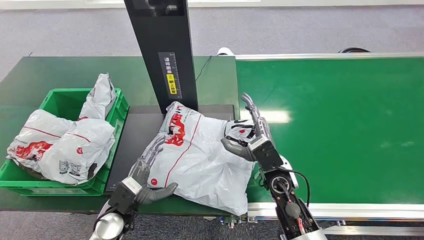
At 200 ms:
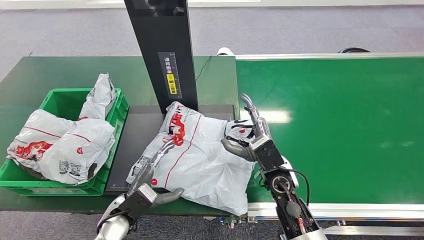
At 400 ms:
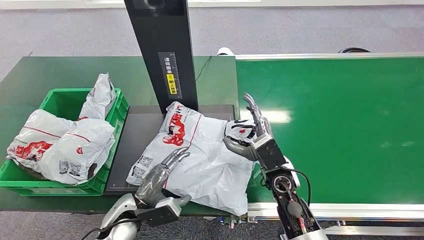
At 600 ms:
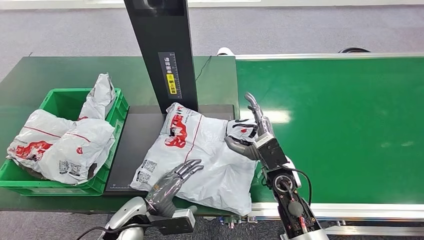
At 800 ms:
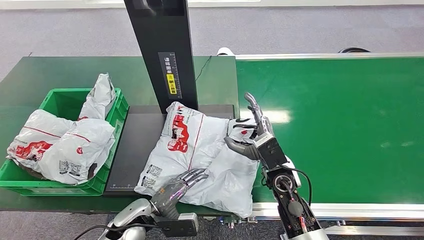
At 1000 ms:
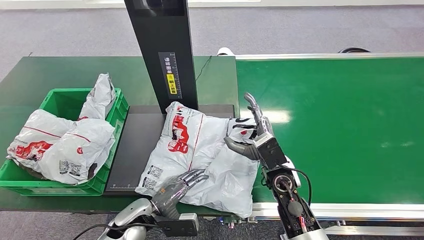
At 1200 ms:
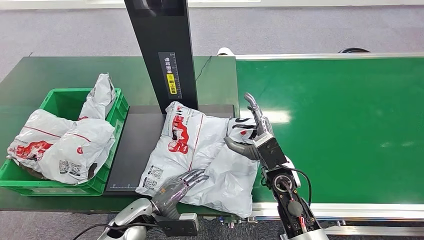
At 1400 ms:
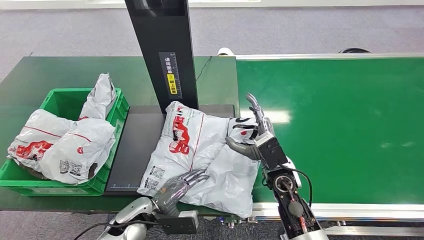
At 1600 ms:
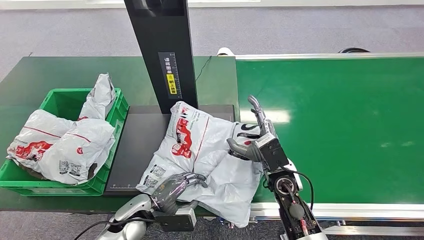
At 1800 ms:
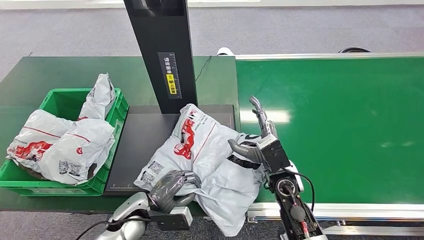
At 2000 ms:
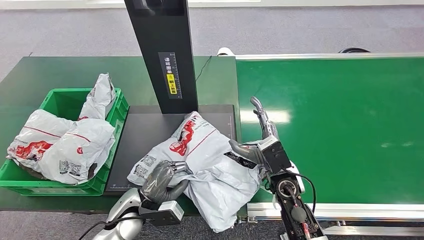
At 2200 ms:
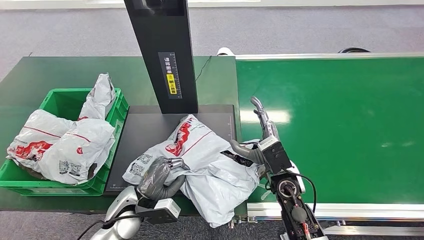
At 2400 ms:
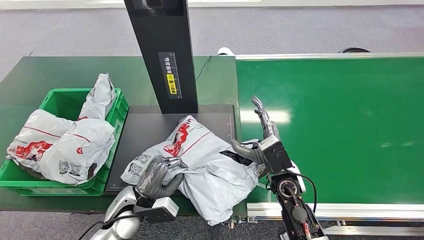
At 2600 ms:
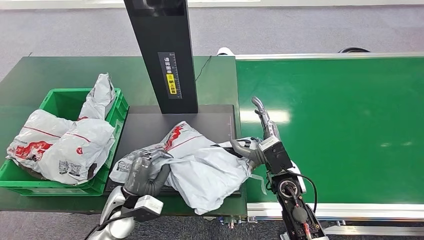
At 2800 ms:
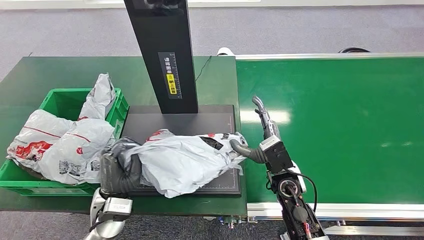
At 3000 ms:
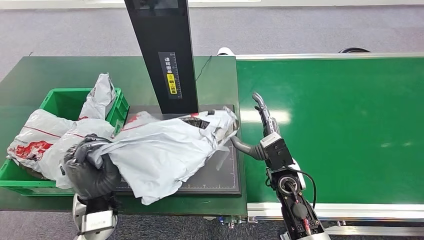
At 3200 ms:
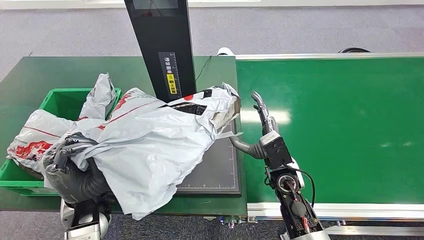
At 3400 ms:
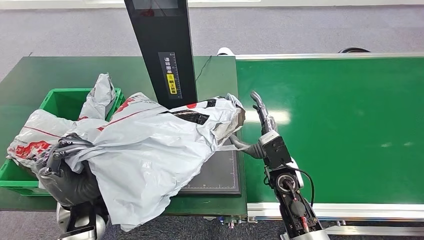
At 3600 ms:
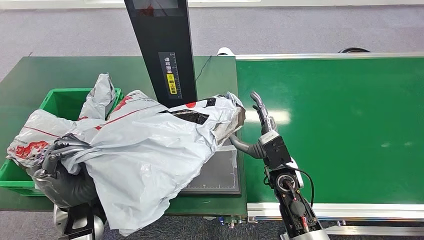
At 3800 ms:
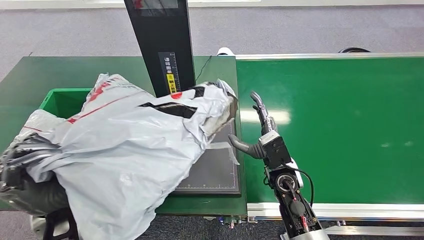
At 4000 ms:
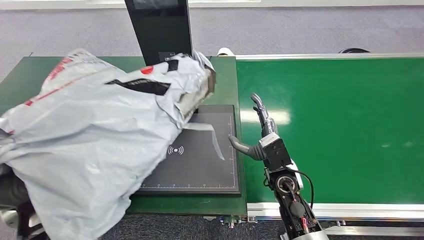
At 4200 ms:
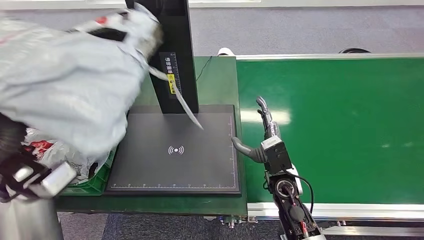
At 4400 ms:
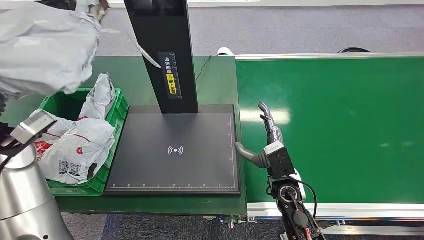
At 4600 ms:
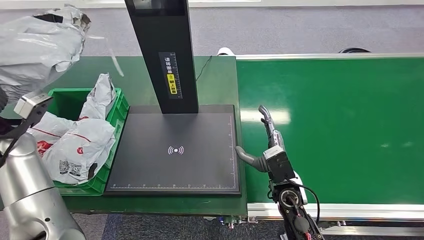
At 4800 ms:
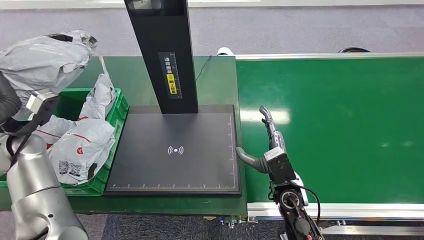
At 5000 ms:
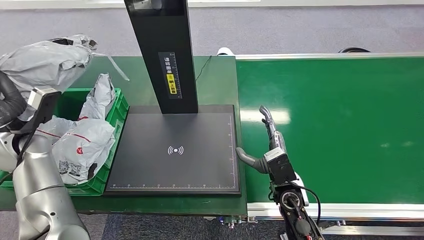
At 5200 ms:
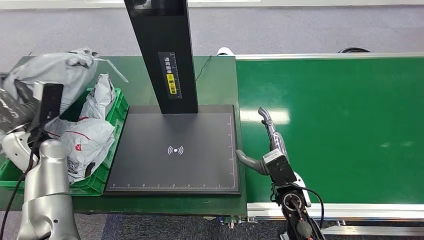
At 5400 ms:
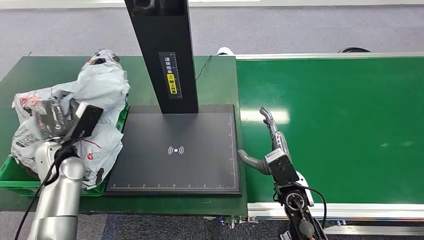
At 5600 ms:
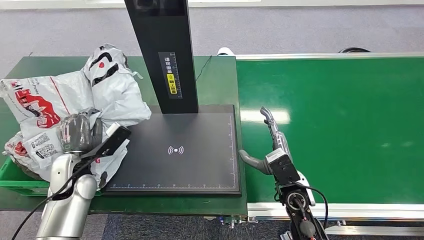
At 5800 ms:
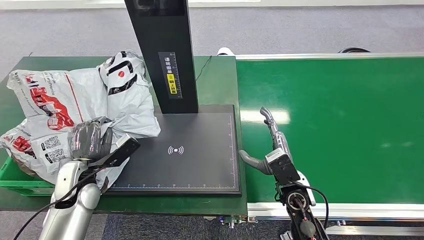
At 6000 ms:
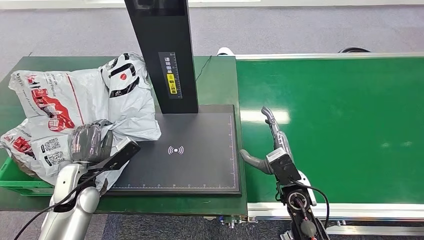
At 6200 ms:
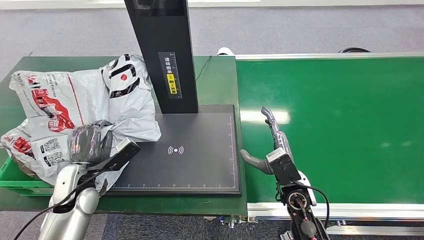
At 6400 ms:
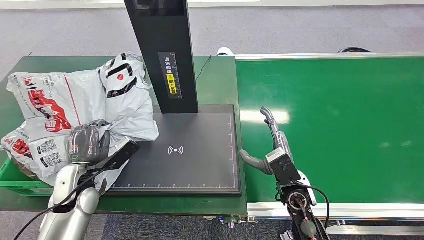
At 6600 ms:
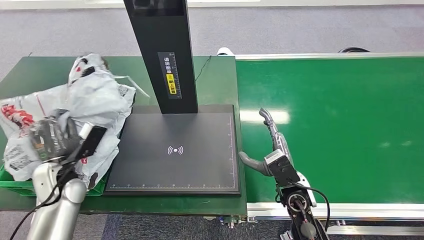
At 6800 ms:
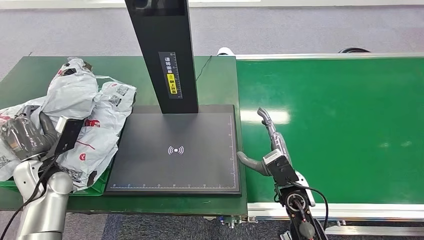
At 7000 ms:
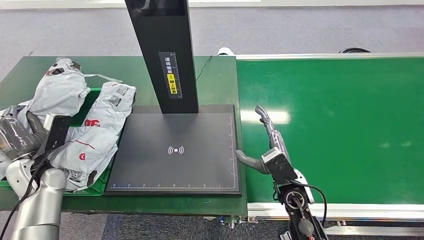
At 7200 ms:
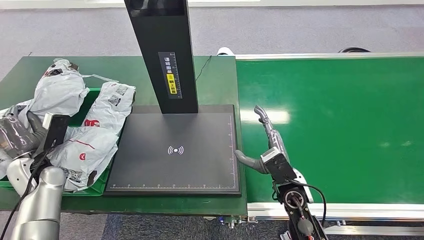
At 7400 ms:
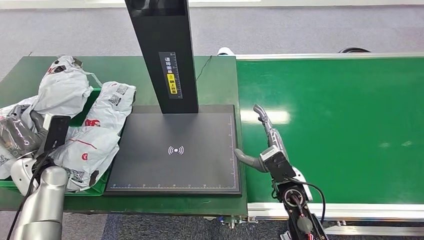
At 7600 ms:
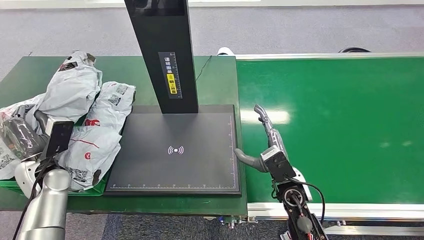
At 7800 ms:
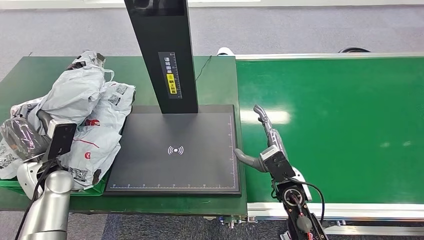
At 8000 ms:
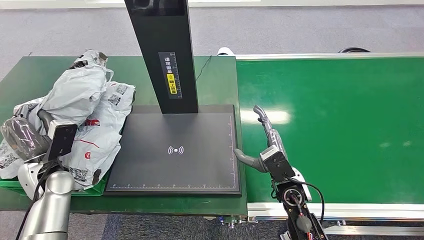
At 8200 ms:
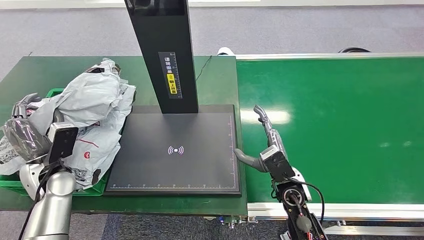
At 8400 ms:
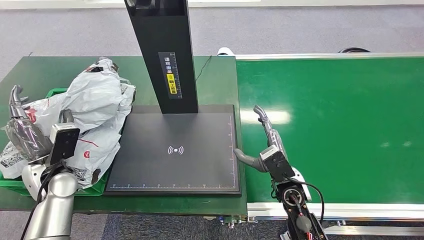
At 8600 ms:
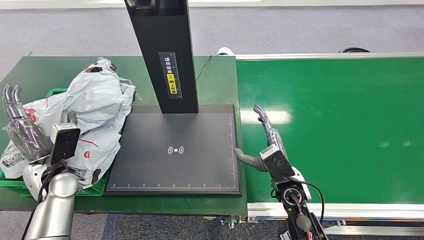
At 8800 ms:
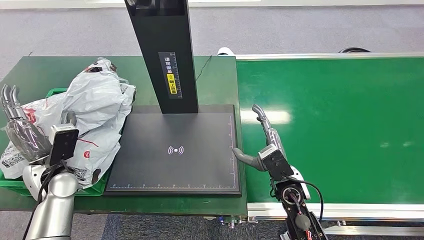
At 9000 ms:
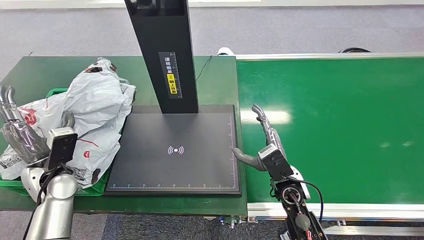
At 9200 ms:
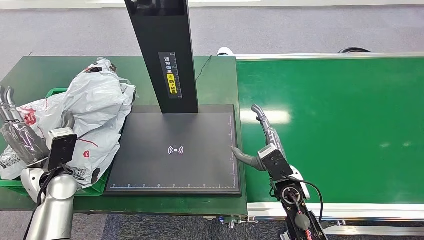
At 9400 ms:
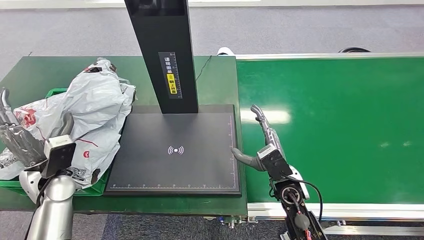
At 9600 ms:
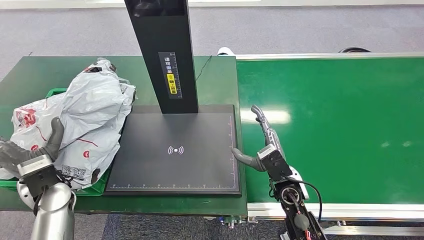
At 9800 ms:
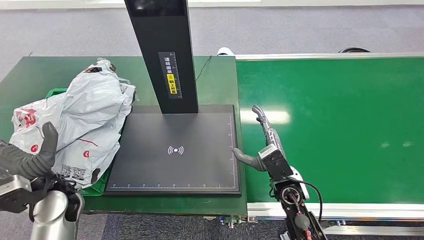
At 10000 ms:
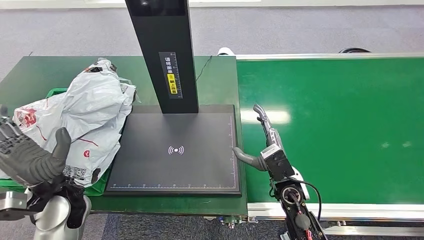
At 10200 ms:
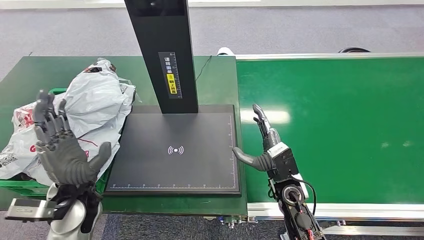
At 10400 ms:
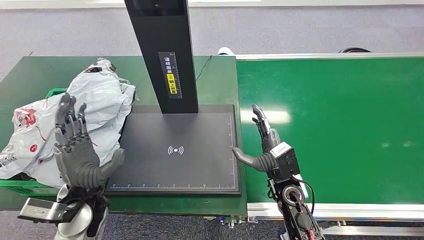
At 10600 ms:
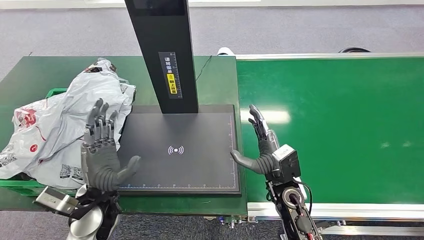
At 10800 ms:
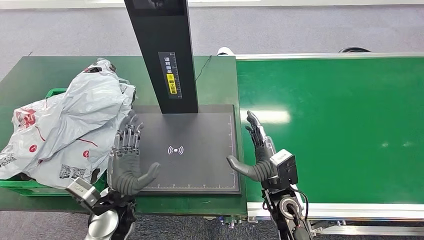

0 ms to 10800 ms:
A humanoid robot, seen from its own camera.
Step, 600 ms to 3200 ms: Pick up the package from the inbound machine.
Step, 3400 ms to 10800 ms: Place the package into the parcel locker.
1600 ms to 3000 ms: The left hand shifts roughly 10 cm upward.
7800 ms to 9200 ms: The hands move only a little.
9200 ms to 10800 ms: The left hand moves to the right, some 15 cm.
